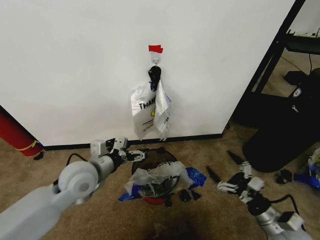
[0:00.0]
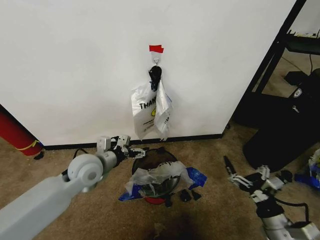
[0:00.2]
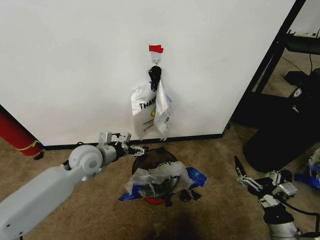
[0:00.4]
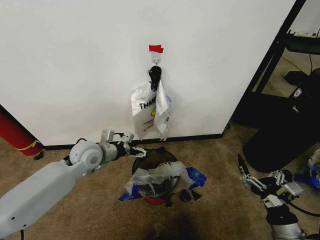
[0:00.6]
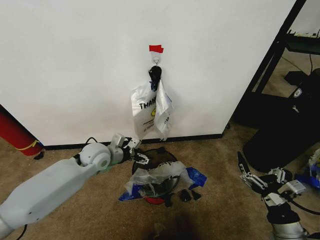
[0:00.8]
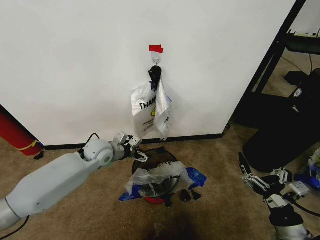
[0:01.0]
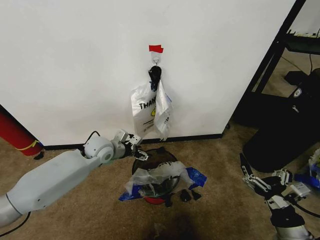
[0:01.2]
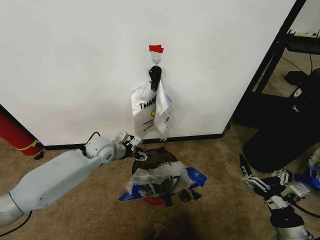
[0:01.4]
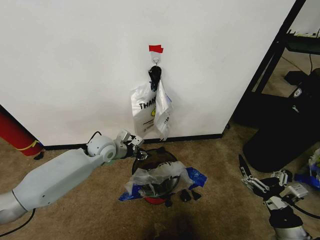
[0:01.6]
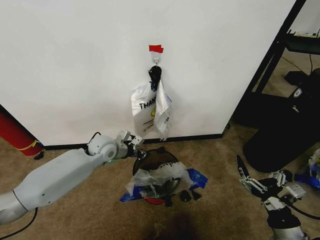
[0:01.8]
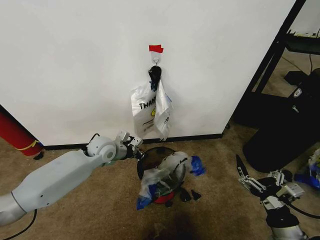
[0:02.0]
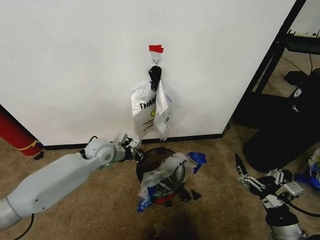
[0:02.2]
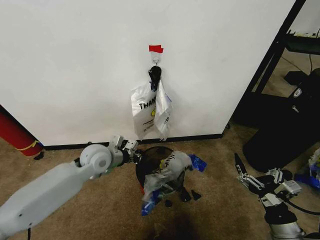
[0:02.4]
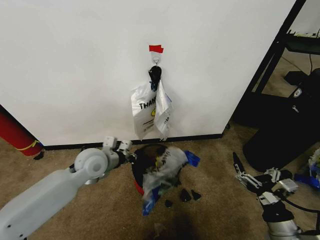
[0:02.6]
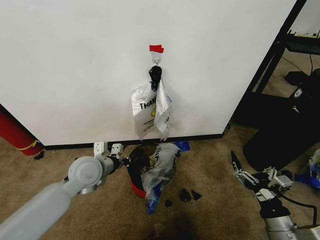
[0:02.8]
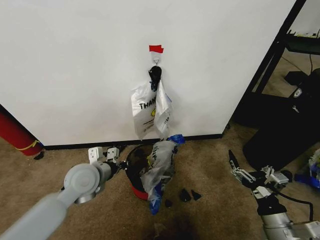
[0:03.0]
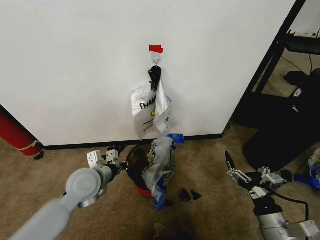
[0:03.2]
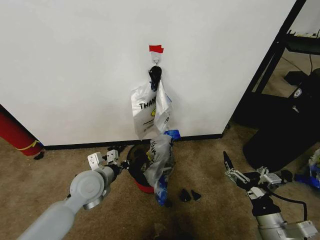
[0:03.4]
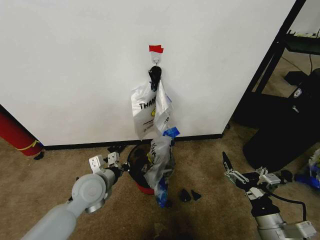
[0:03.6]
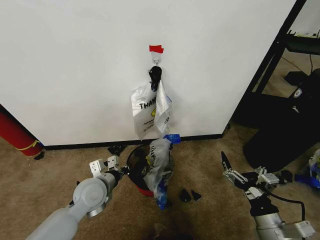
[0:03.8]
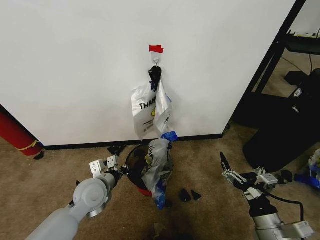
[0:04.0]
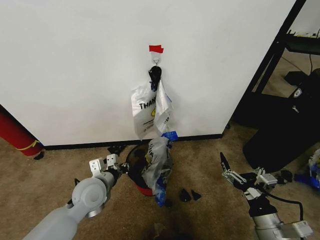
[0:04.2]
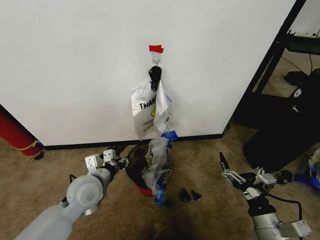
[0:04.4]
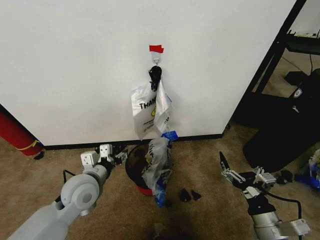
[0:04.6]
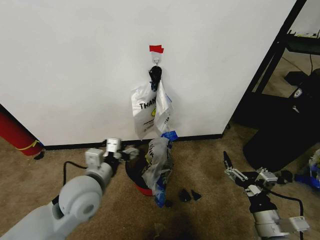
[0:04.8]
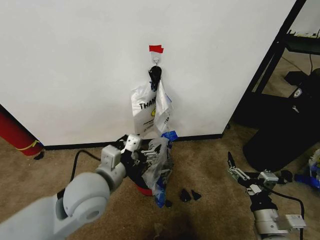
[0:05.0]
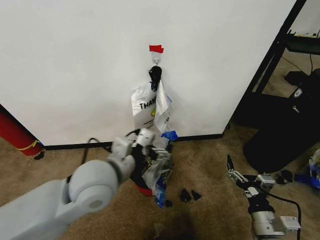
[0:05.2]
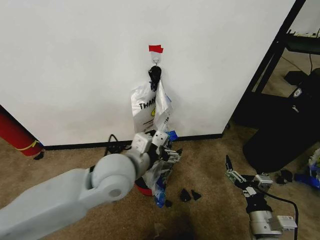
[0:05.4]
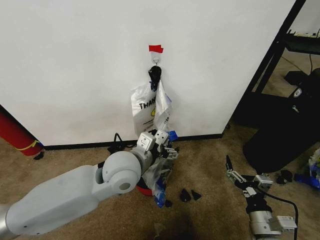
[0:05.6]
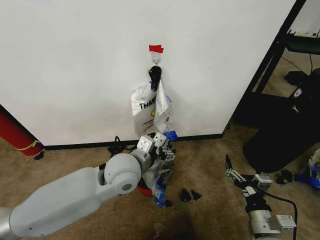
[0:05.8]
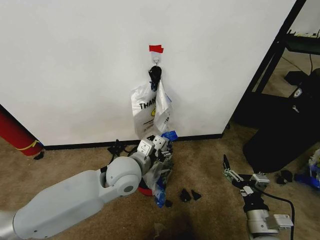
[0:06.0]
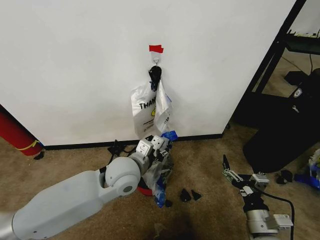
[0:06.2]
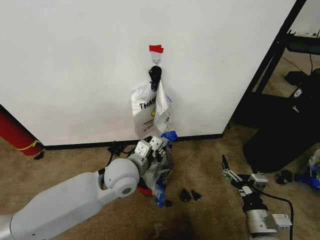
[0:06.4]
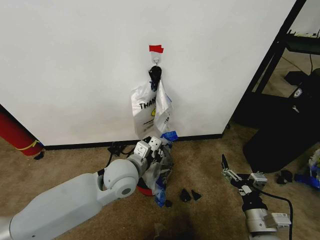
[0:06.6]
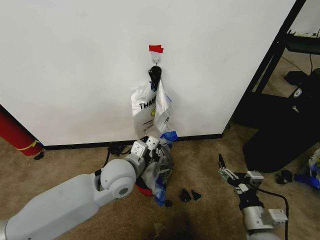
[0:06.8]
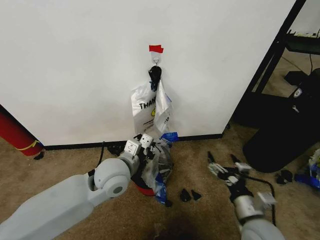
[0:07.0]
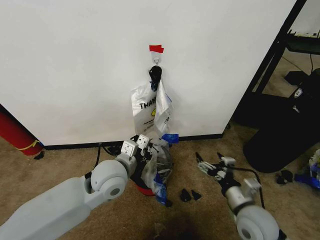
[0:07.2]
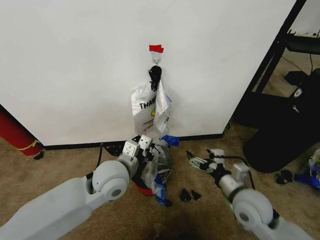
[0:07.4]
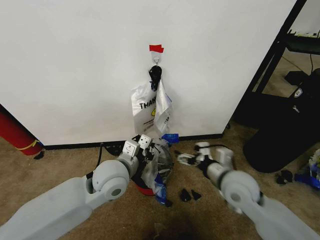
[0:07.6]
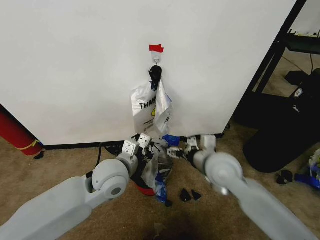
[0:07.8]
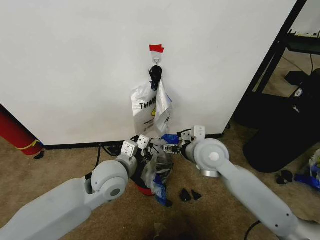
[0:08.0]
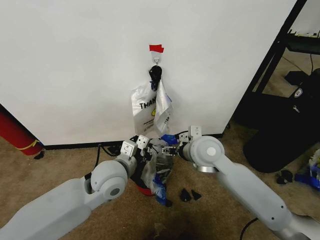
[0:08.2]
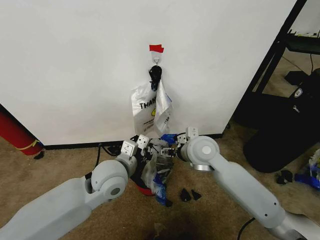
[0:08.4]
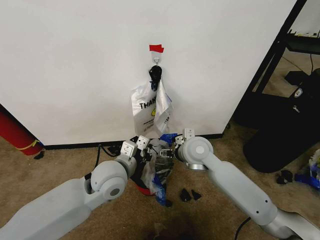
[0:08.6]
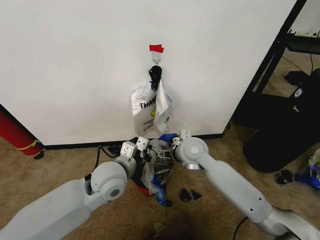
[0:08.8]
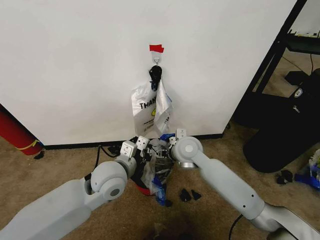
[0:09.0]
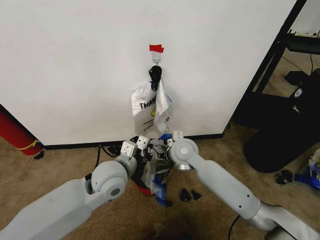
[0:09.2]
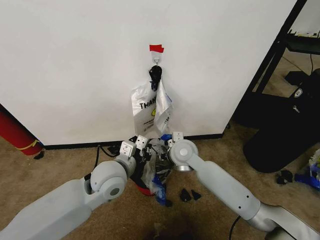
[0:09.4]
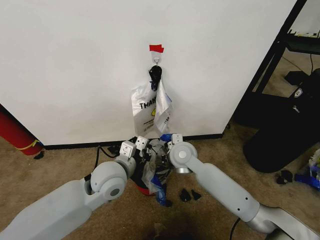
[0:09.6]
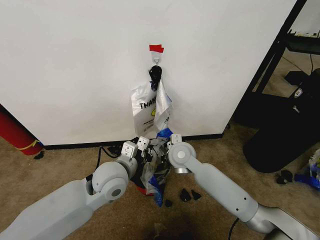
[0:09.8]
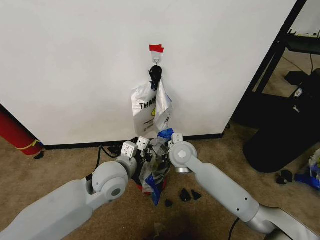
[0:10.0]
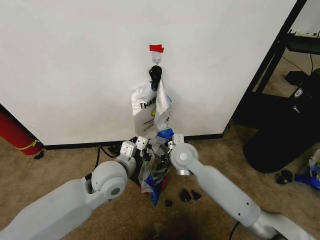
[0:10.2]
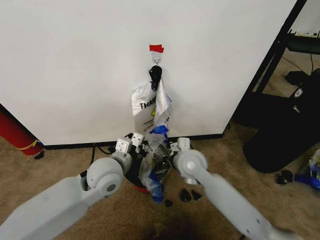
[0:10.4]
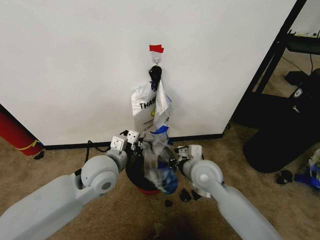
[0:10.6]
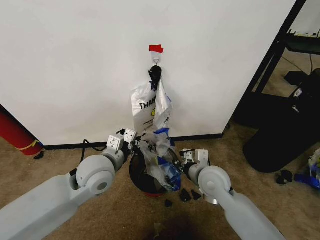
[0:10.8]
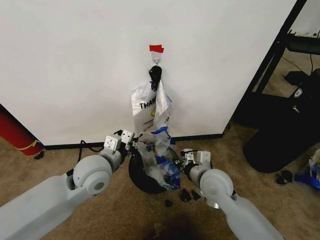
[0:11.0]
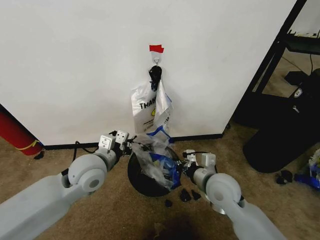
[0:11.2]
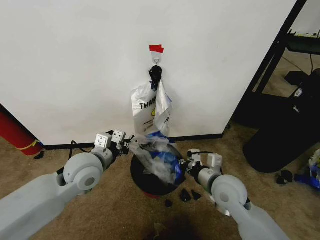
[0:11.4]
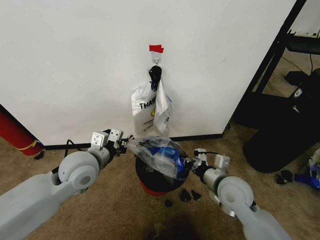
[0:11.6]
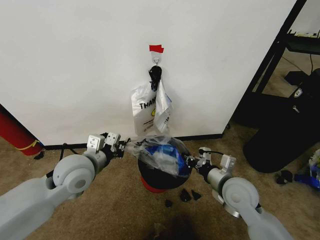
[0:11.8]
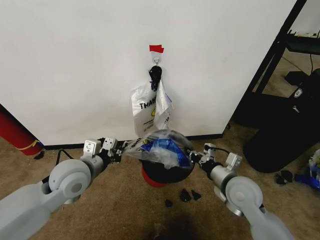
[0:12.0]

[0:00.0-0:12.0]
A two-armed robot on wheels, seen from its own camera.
Task of the whole recording: Pick up the garbage bag from the wall and place it over the trash bin.
0:00.0 to 0:01.6: The left gripper moves forward, about 15 cm, and closes. Meanwhile the right gripper is displaced backward by about 5 cm.
0:01.6 to 0:03.0: The left gripper moves backward, some 15 cm, and closes its fingers.
0:03.0 to 0:04.4: The left gripper opens its fingers.
0:04.4 to 0:06.0: The left gripper moves to the right and upward, approximately 15 cm.
0:06.0 to 0:07.6: The right gripper shifts roughly 20 cm forward, upward and to the left; the left gripper closes.
0:07.6 to 0:09.0: The right gripper shifts roughly 15 cm forward and to the left.
0:09.0 to 0:10.4: The right gripper closes up.
0:10.4 to 0:12.0: The right gripper goes roughly 15 cm to the right and backward. The left gripper moves to the left, approximately 10 cm.

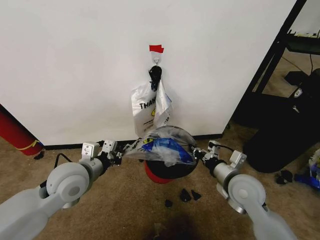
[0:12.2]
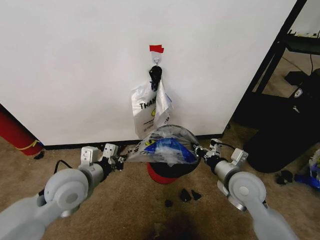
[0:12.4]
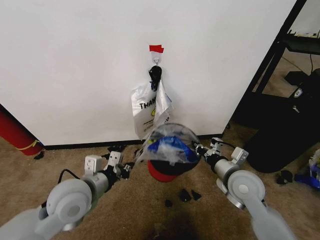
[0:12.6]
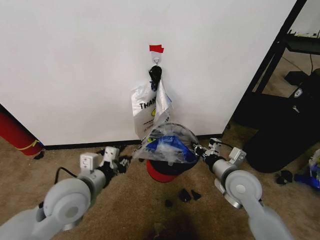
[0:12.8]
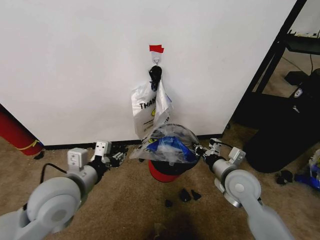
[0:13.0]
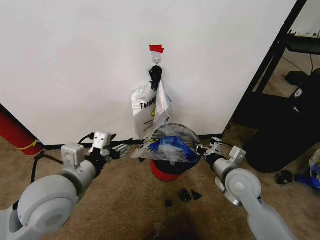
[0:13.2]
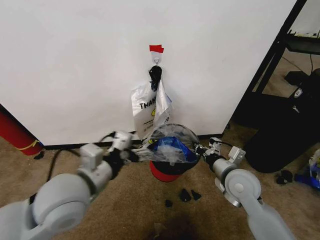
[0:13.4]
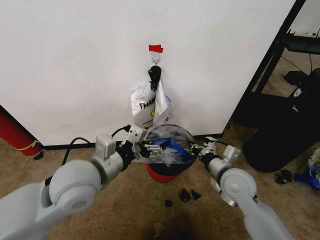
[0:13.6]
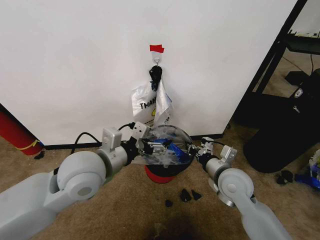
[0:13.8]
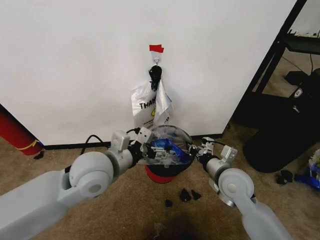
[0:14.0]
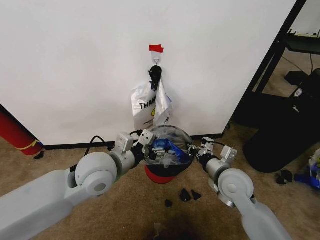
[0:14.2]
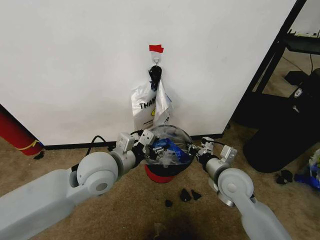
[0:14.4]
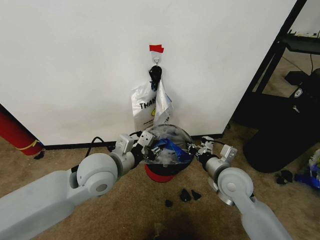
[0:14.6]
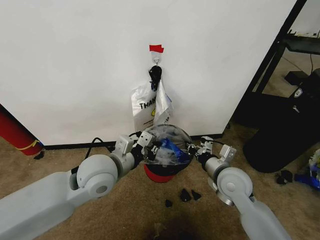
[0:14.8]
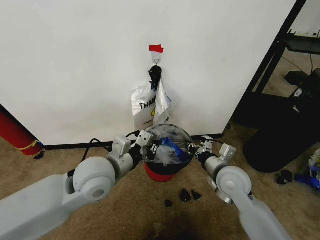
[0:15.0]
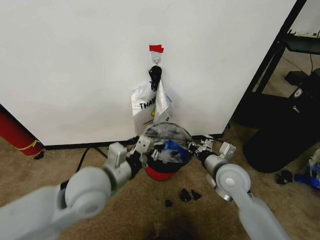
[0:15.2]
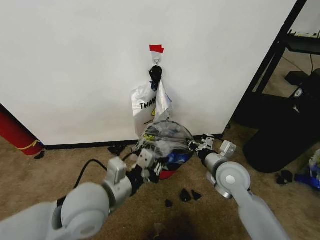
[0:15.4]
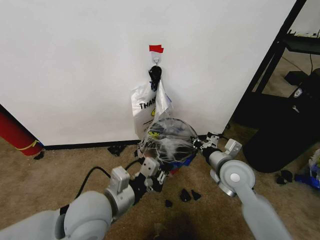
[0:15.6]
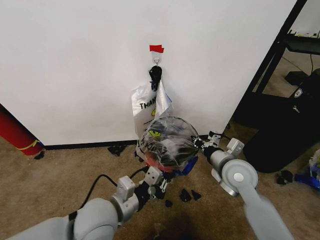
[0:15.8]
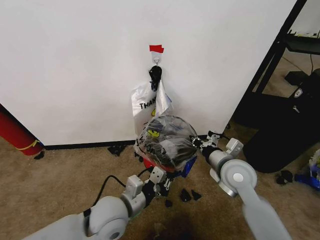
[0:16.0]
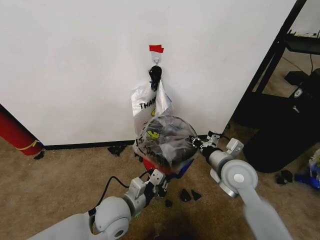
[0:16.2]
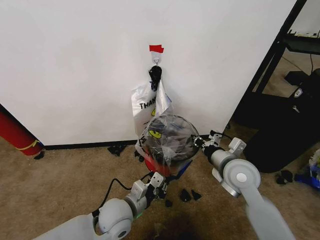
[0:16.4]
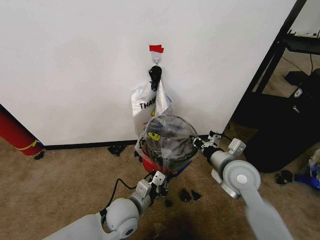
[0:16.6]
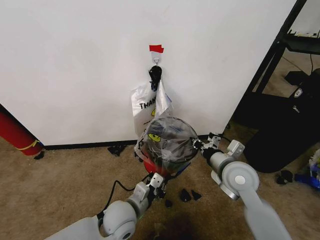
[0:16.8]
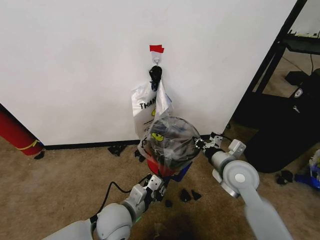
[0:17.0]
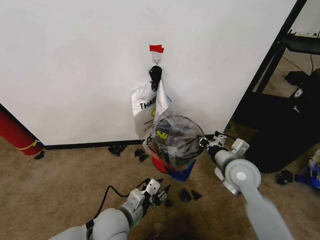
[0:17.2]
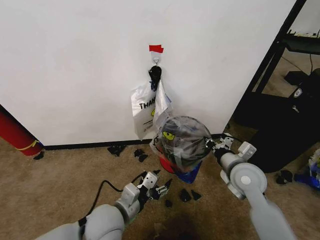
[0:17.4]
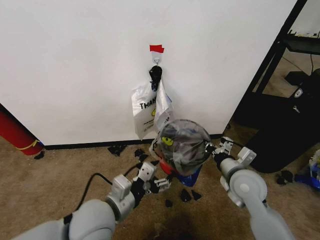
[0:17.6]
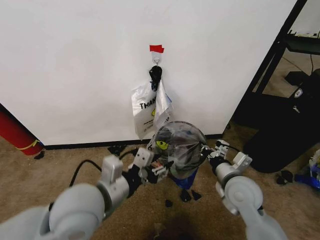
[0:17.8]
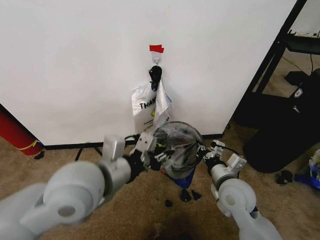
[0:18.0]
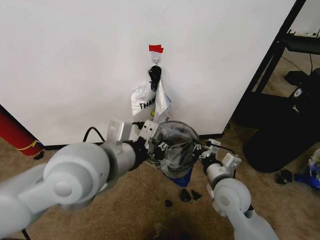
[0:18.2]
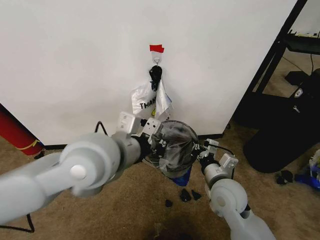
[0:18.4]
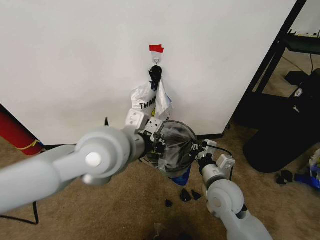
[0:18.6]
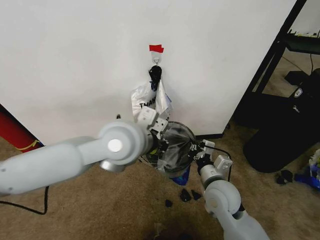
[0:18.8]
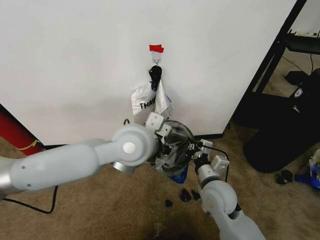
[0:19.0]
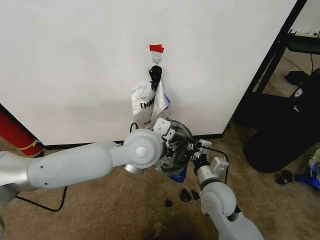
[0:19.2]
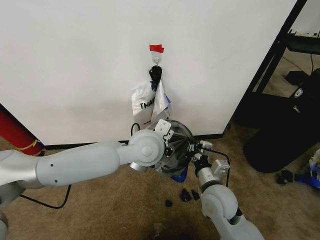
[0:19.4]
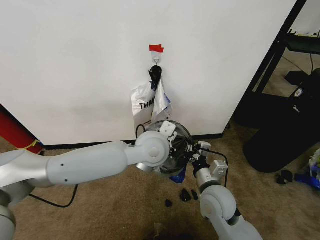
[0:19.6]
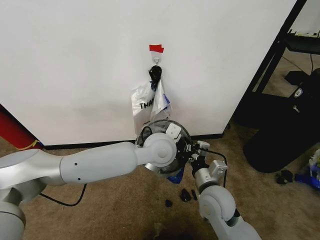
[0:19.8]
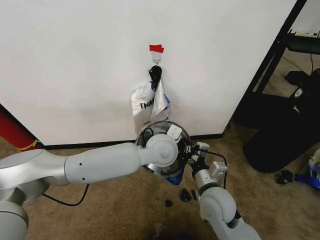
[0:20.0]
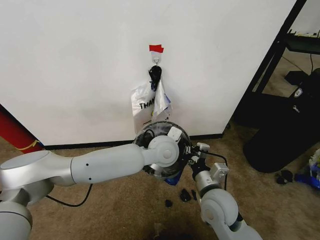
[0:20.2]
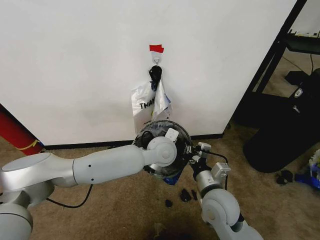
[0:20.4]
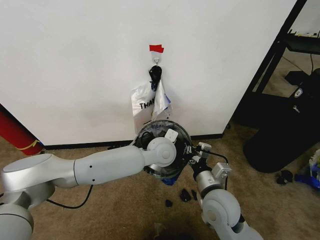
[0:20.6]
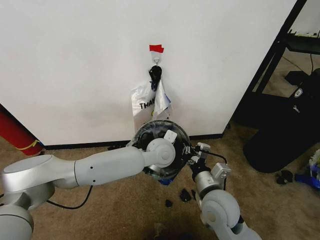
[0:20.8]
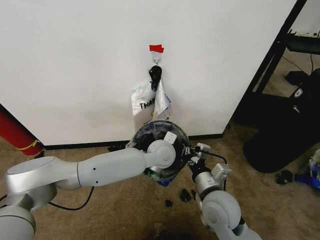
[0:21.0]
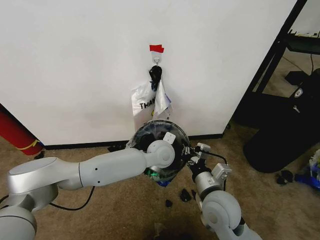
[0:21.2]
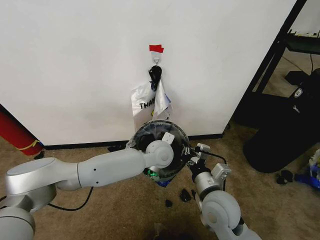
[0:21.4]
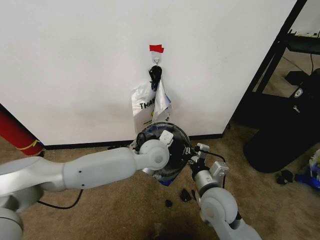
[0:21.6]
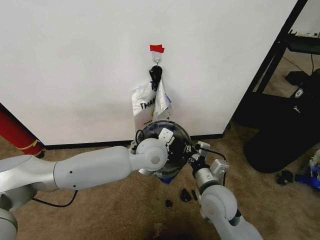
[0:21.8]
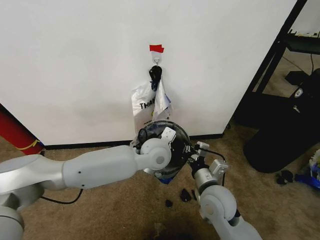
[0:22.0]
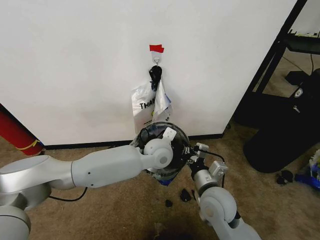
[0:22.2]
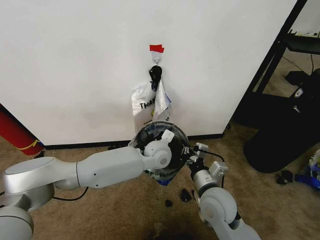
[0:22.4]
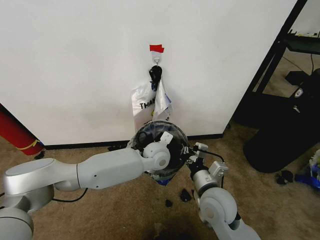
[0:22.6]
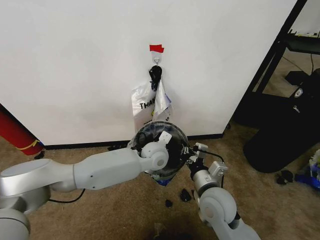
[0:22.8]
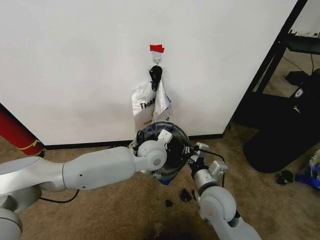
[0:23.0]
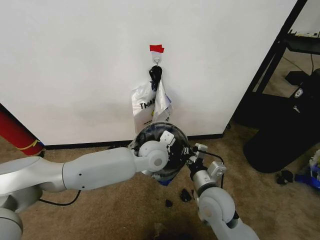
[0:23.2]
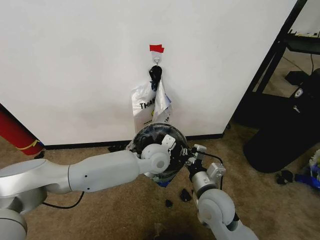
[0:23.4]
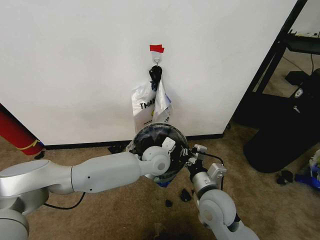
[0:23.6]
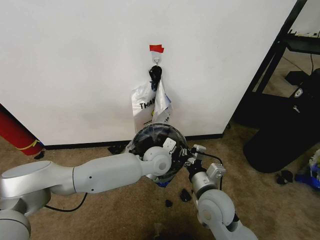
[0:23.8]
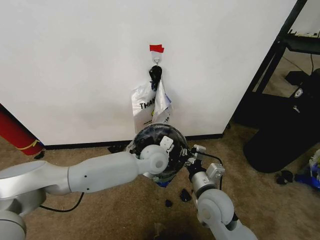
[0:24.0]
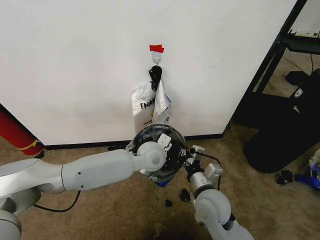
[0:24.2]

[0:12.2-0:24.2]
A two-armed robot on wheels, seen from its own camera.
Task of the whole recording: Pick up the garbage bag from the wall and place it over the trash bin.
0:12.2 to 0:13.8: The left gripper shifts about 10 cm upward and to the right, and opens its fingers.
0:13.8 to 0:15.2: The left gripper closes its fingers.
0:15.2 to 0:16.6: The left gripper is displaced downward by roughly 15 cm.
0:16.6 to 0:18.2: The left gripper travels upward by some 25 cm, and opens, then closes once more. The right gripper shifts by roughly 5 cm.
0:18.2 to 0:19.8: The right gripper changes place by approximately 5 cm. Meanwhile the left gripper shifts some 20 cm to the right, forward and downward.
0:19.8 to 0:21.2: The left gripper heads downward, covering some 10 cm.
0:21.2 to 0:22.6: The left gripper reaches some 5 cm upward, then returns.
0:22.6 to 0:24.2: The grippers make only small movements.
